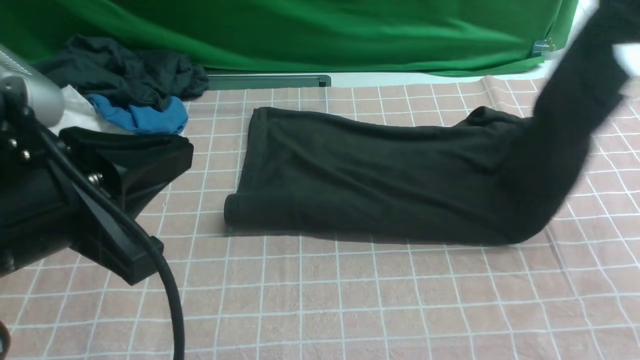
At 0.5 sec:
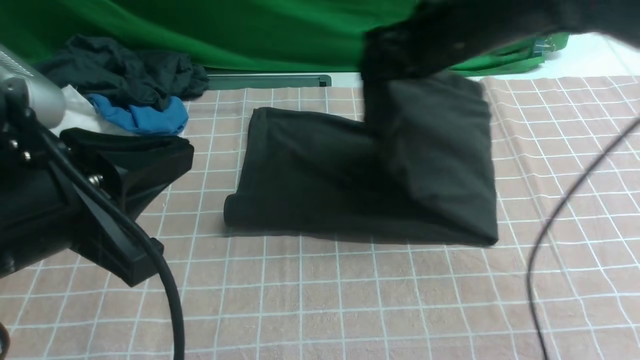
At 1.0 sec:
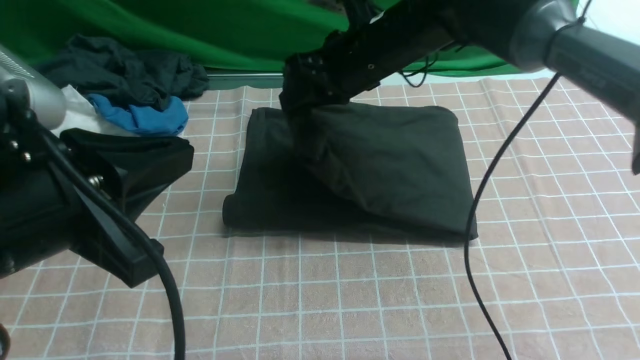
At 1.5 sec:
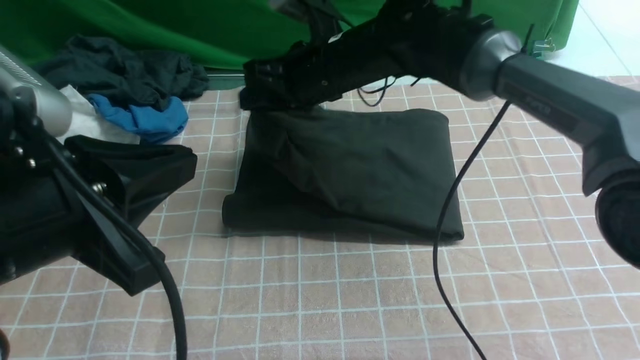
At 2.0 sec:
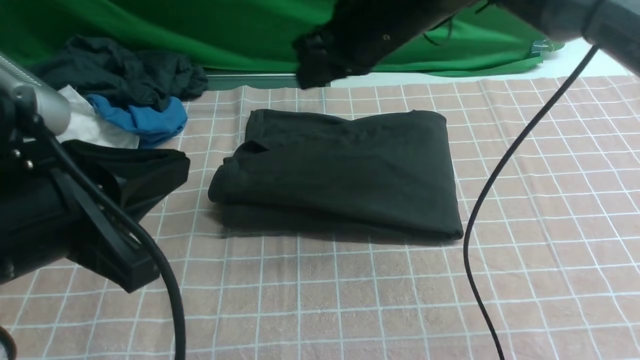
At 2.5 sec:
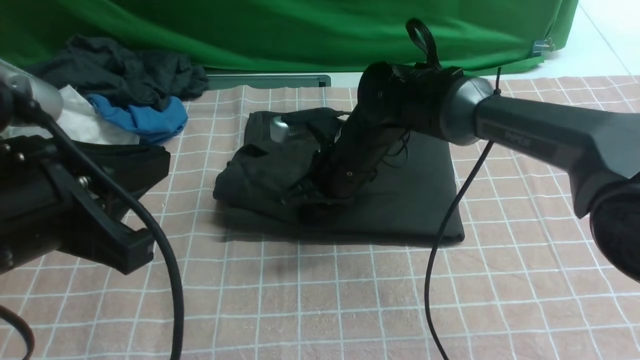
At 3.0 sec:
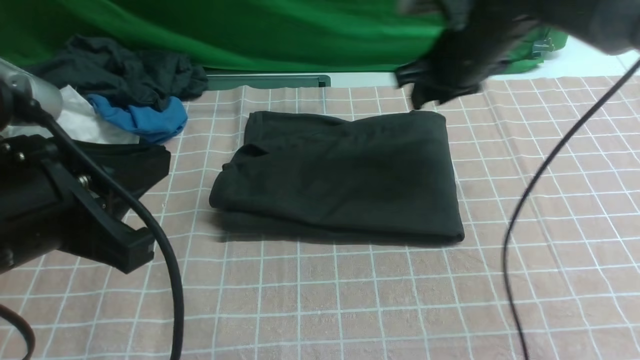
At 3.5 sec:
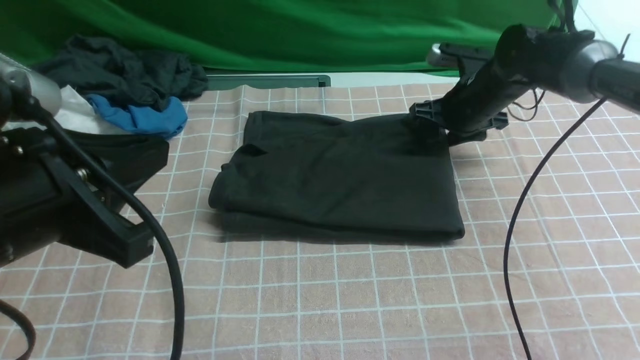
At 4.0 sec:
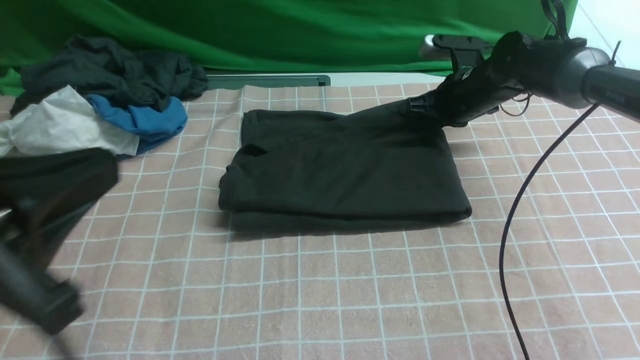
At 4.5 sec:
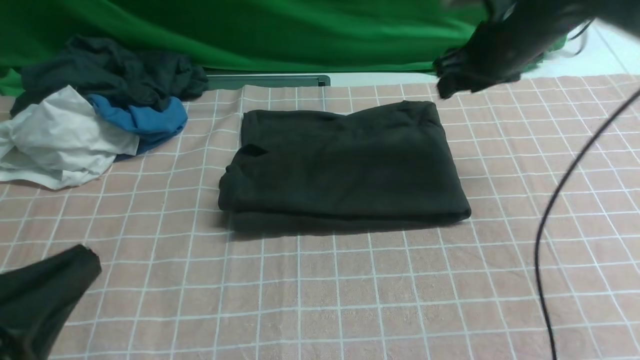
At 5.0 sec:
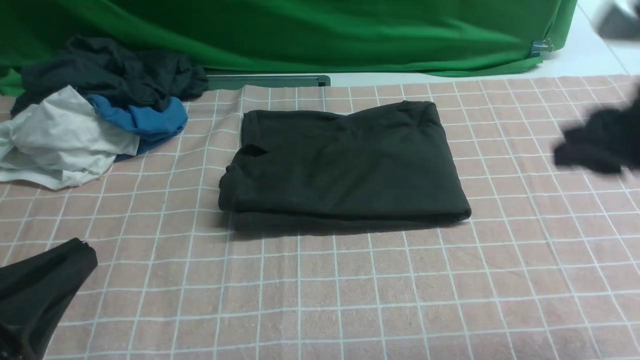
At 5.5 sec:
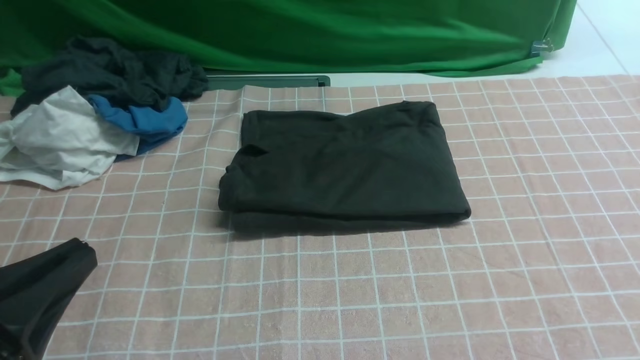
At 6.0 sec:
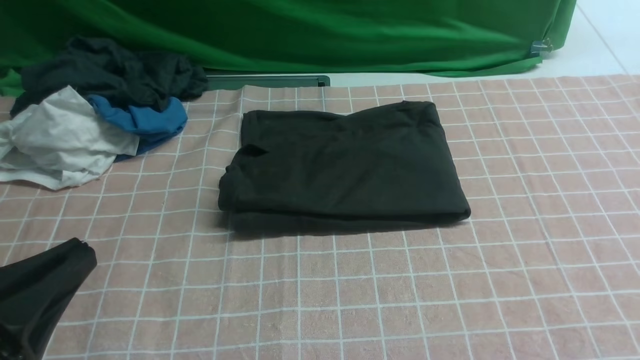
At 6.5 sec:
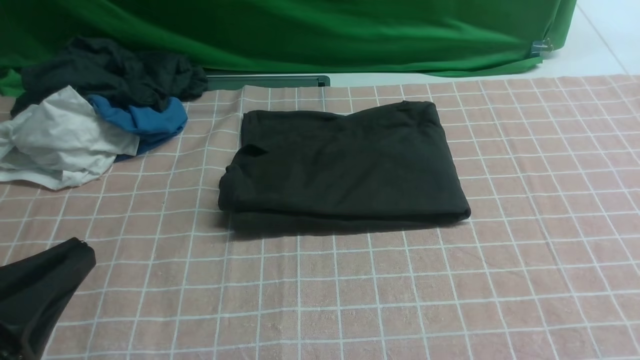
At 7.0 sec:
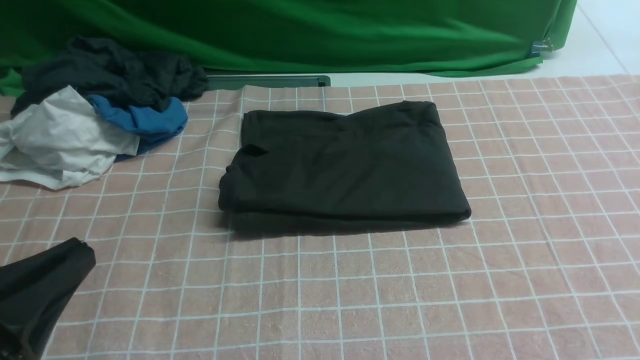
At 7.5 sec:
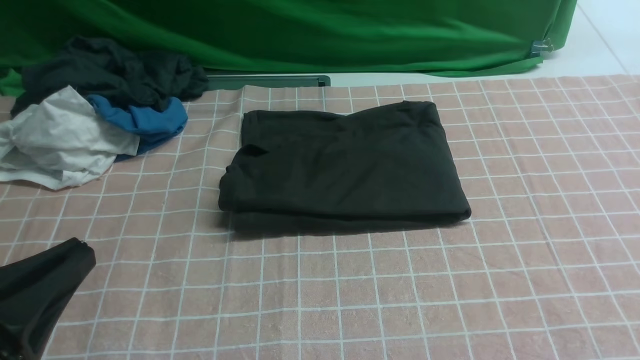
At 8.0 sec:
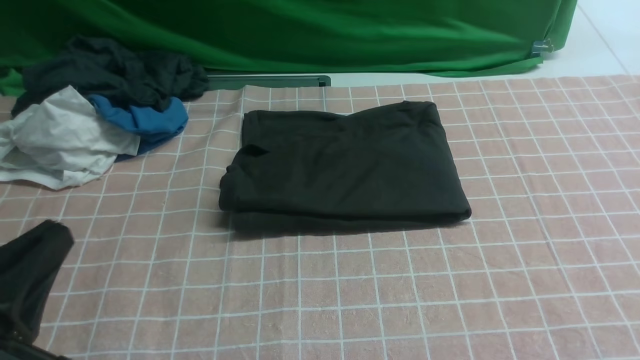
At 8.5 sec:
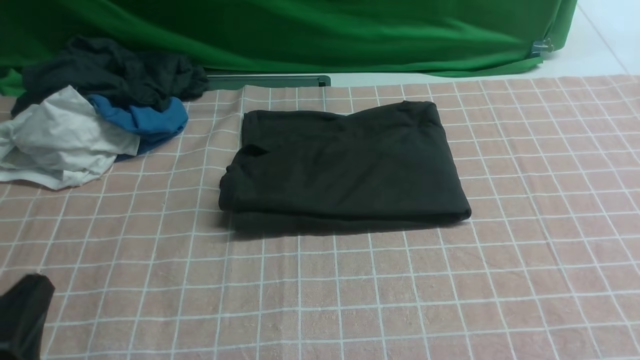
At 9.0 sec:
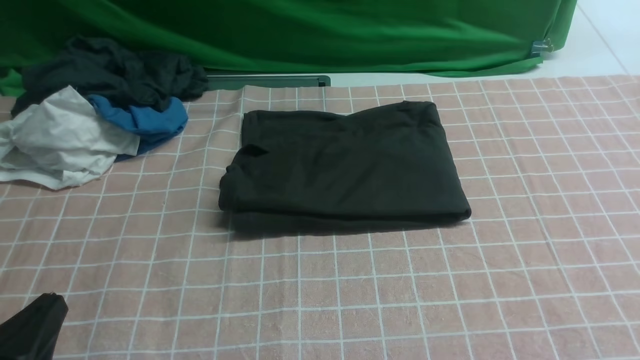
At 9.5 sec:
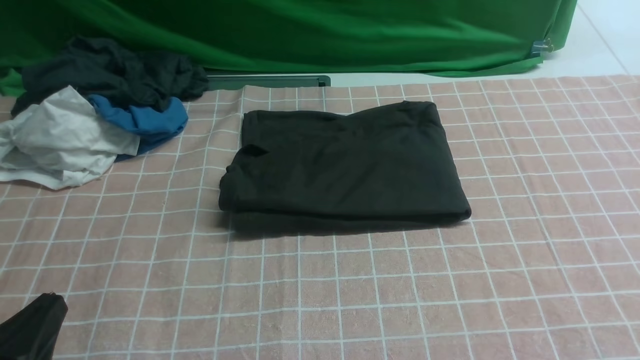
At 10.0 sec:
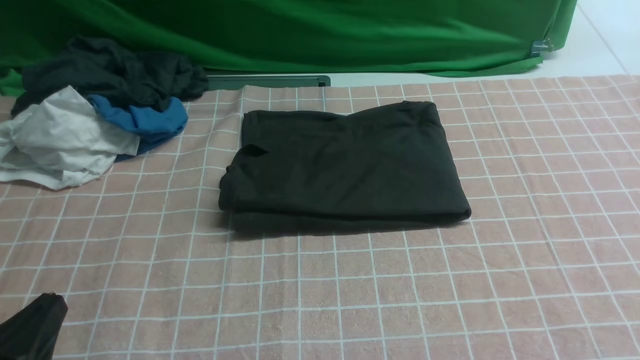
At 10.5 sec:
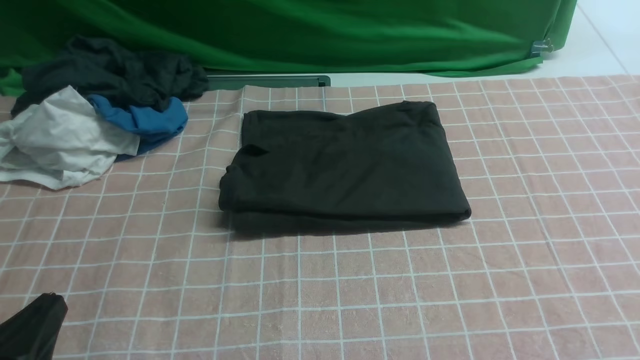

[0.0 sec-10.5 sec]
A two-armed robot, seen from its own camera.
Step, 0.0 sec to 1.5 sec: use the right arm to drag the right edge of the fabric to the left and folds it over the left edge.
0.0 sec to 2.0 sec: The right gripper travels to the left by about 25 cm.
2.0 sec to 4.0 sec: The left gripper shifts by about 5 cm, while the right gripper goes roughly 20 cm to the right, downward and forward.
4.0 sec to 6.5 sec: The right gripper moves backward, about 40 cm, and closes up. The left gripper heads downward, covering roughly 5 cm.
6.5 sec to 8.5 sec: The left gripper travels downward by roughly 10 cm.
8.5 sec to 10.5 sec: Both grippers stay about where they are.
